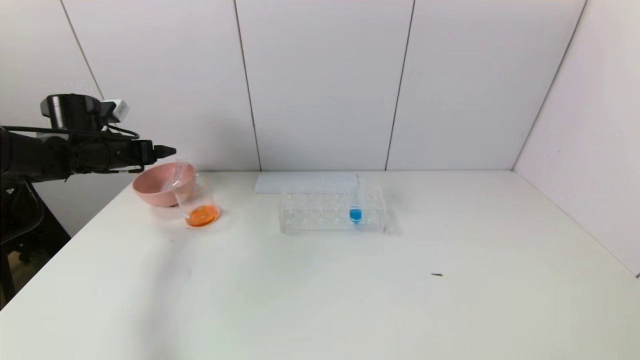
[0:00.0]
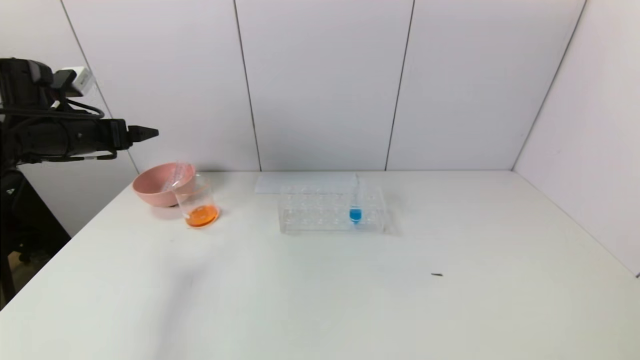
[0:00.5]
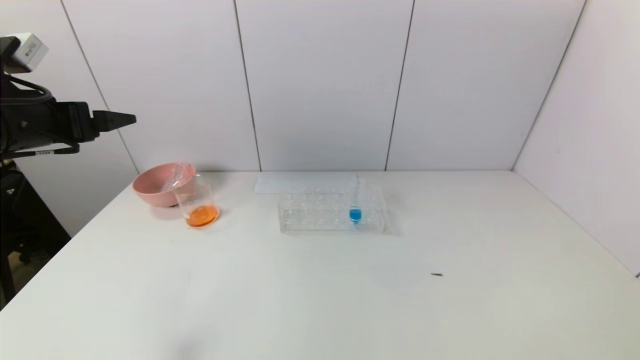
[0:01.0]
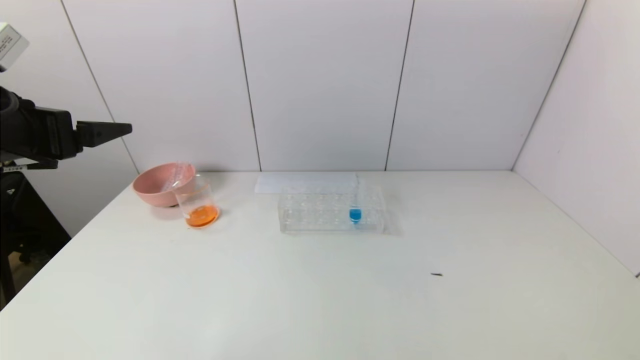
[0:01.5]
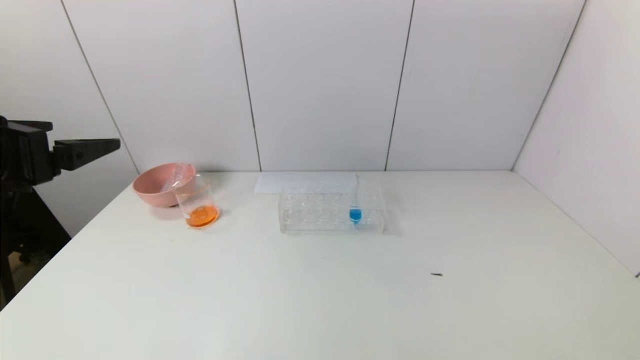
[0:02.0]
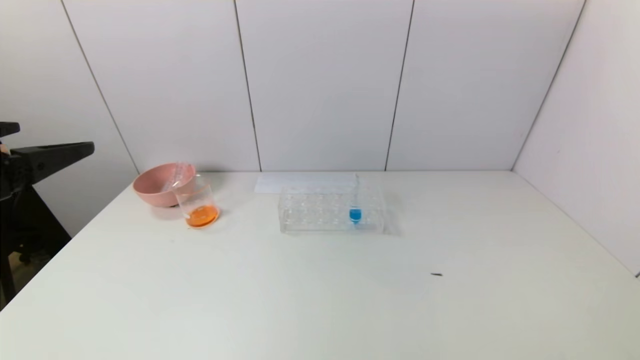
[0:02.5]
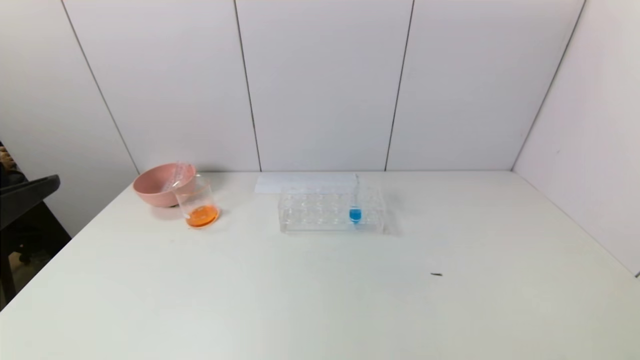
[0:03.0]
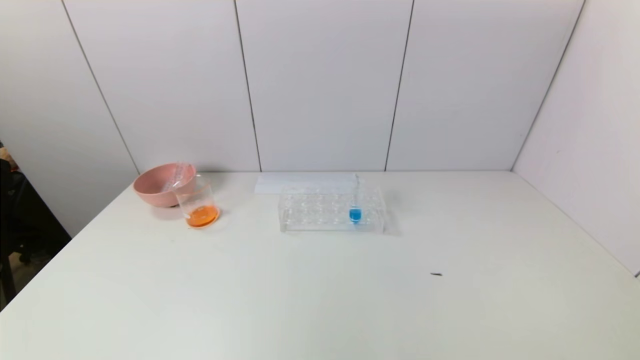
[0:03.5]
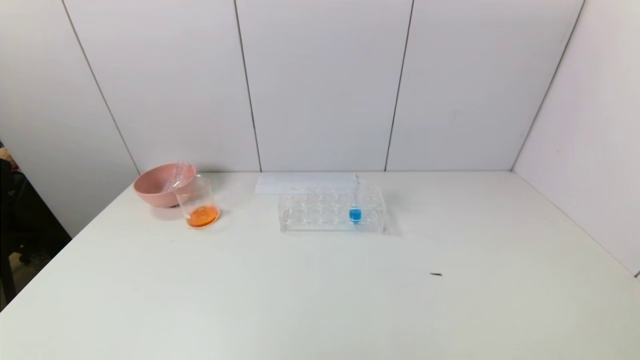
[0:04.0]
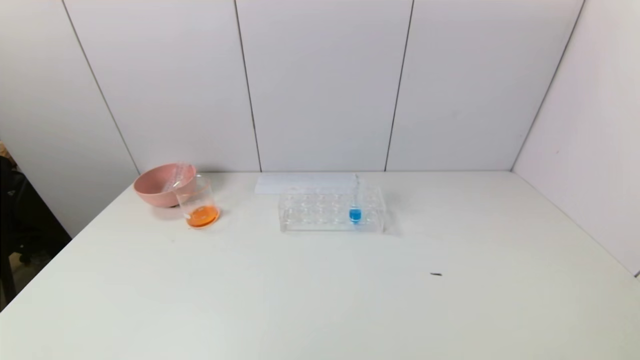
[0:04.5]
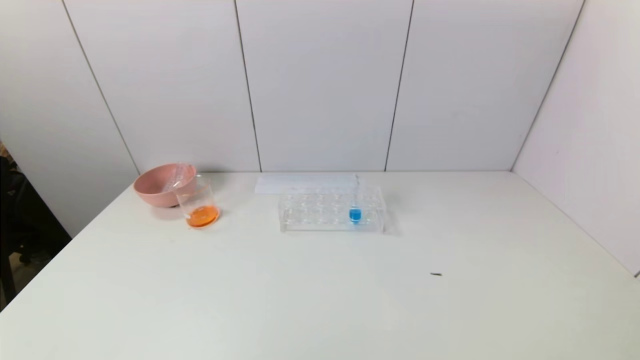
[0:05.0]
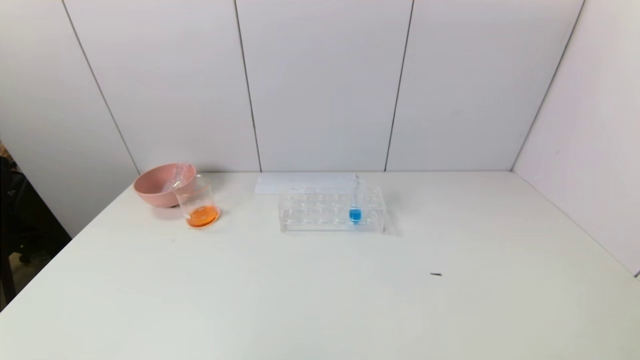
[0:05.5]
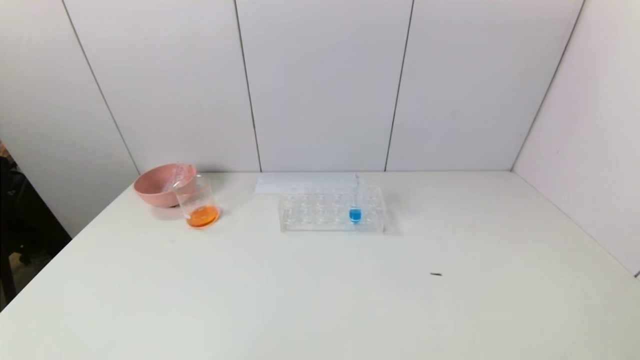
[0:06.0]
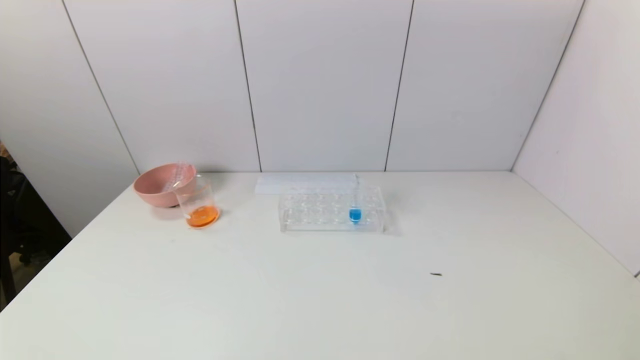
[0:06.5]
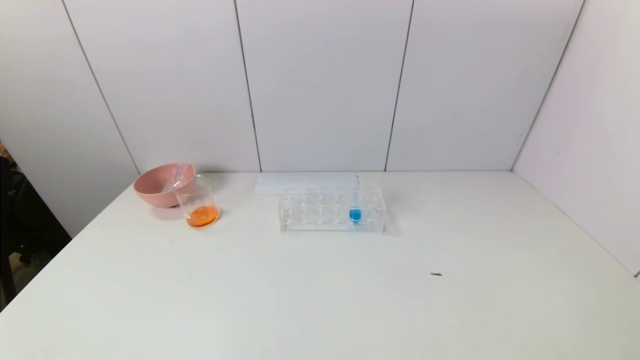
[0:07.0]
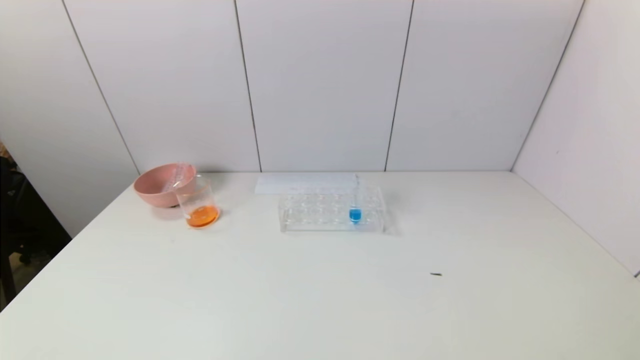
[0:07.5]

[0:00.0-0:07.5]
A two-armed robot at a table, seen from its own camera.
Task of the whole recording: pick up the test tube with yellow pigment and the test tube with red pigment by grippers and pour them into the beaker.
0:00.0 to 0:02.0: The left gripper is displaced backward and upward by about 25 cm.
0:02.0 to 0:04.0: The left gripper moves backward, some 25 cm.

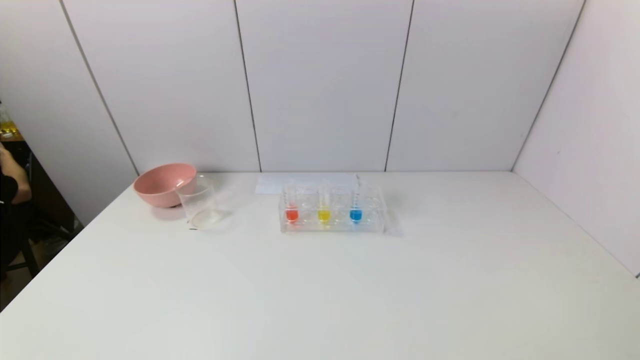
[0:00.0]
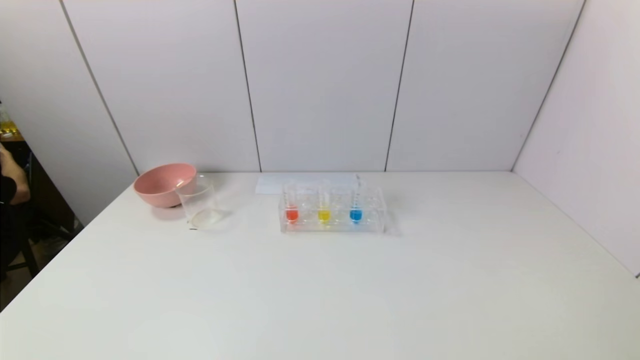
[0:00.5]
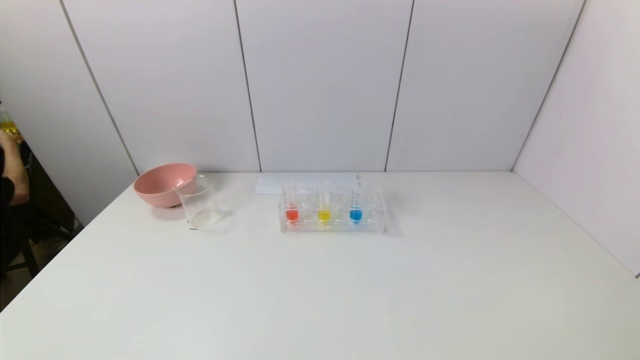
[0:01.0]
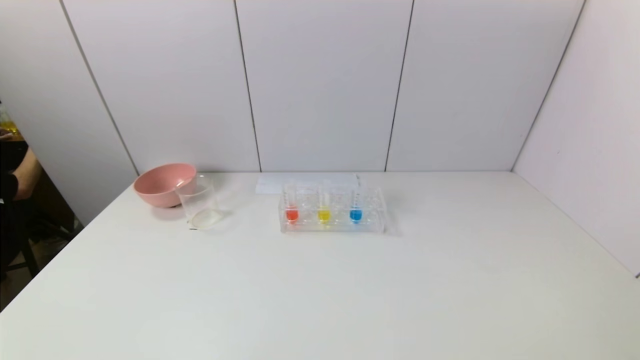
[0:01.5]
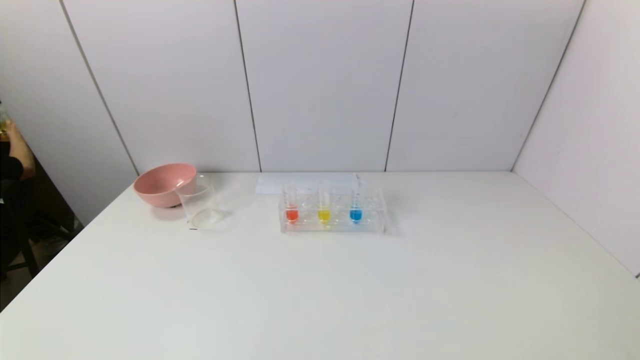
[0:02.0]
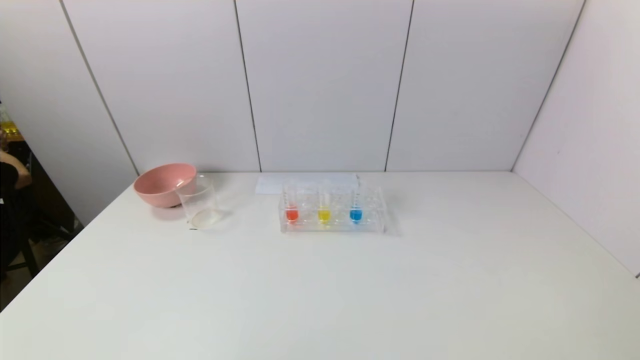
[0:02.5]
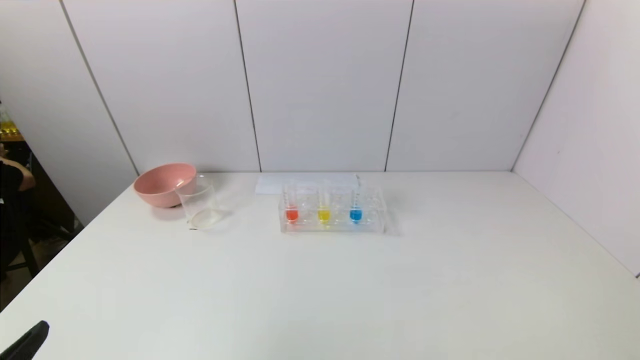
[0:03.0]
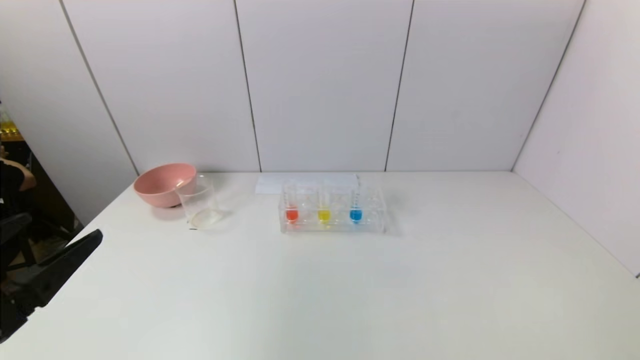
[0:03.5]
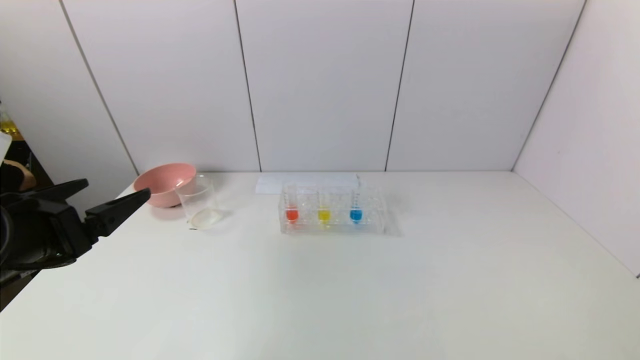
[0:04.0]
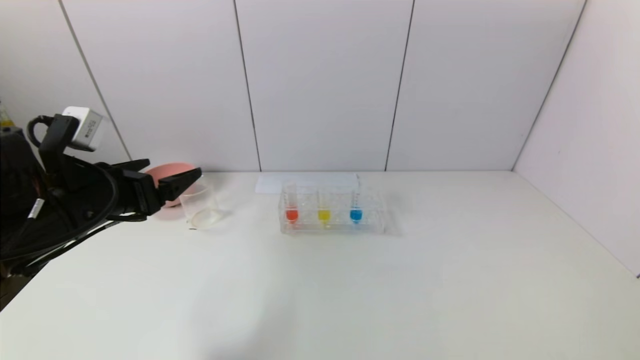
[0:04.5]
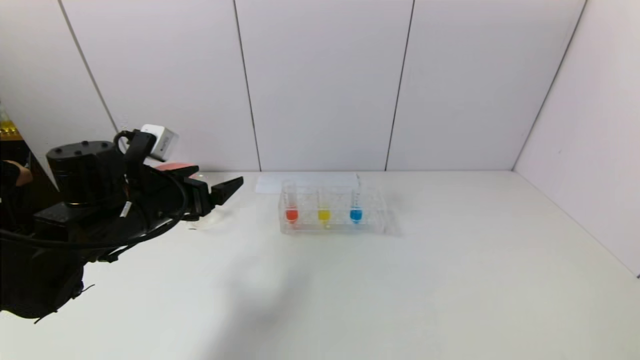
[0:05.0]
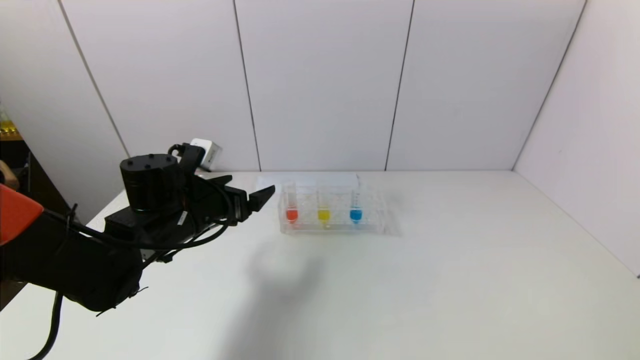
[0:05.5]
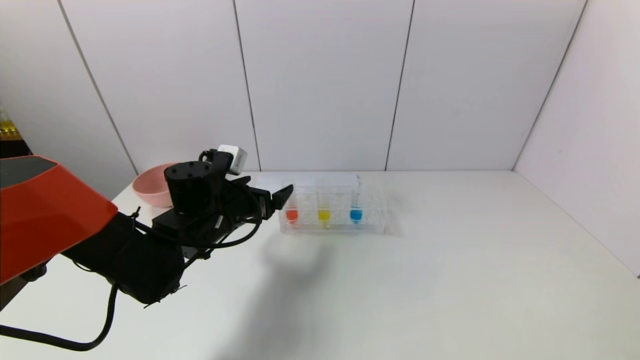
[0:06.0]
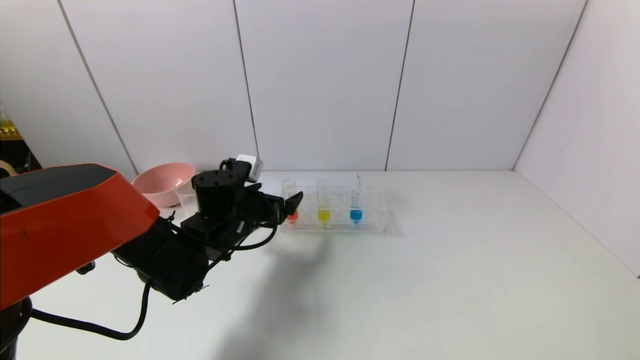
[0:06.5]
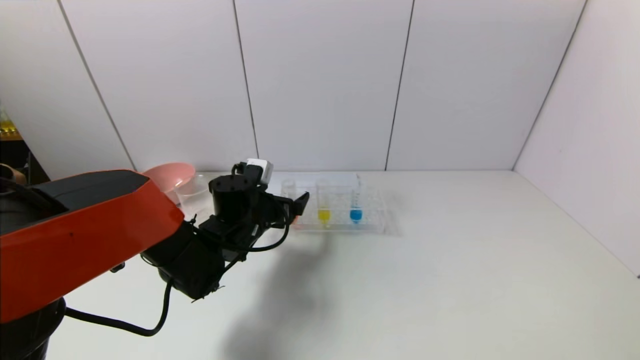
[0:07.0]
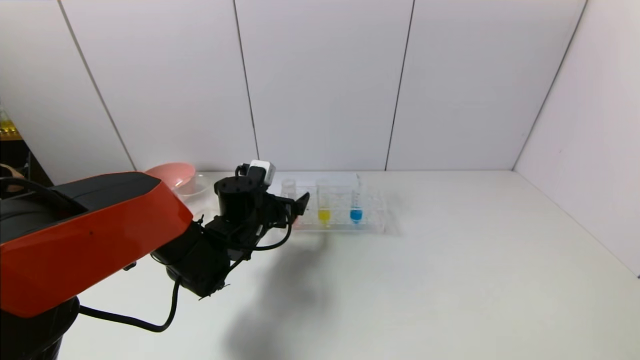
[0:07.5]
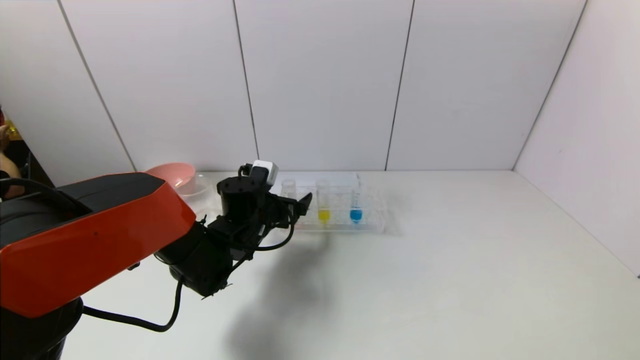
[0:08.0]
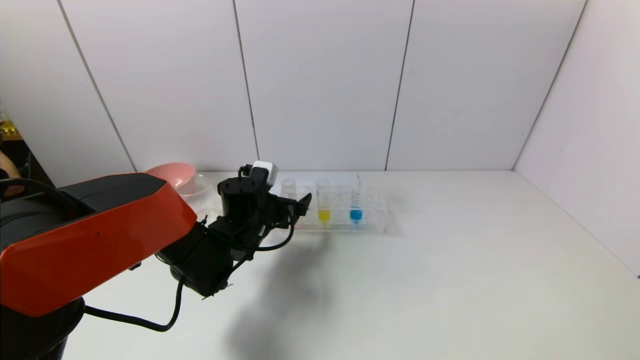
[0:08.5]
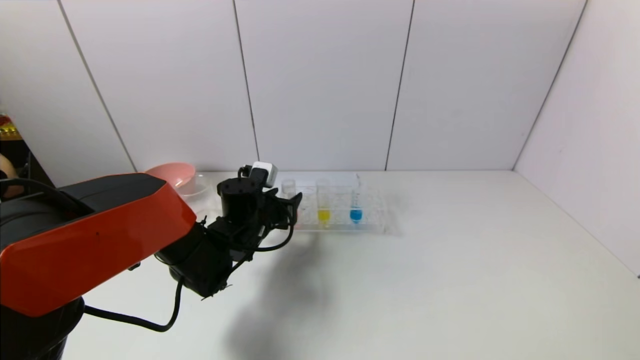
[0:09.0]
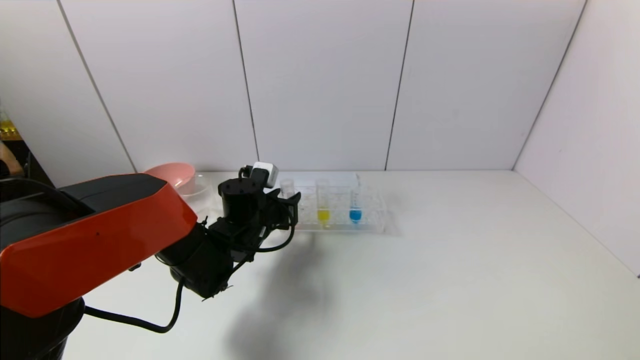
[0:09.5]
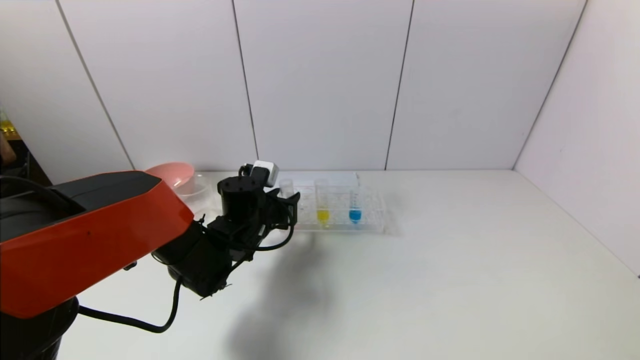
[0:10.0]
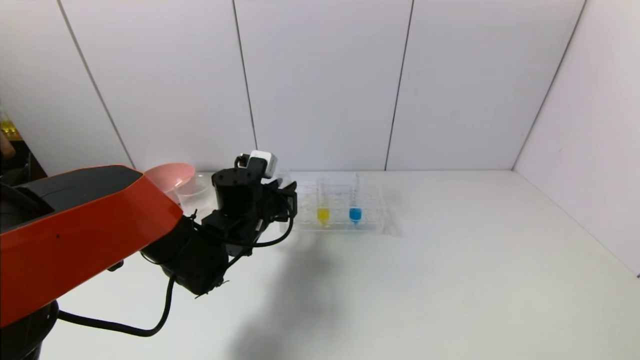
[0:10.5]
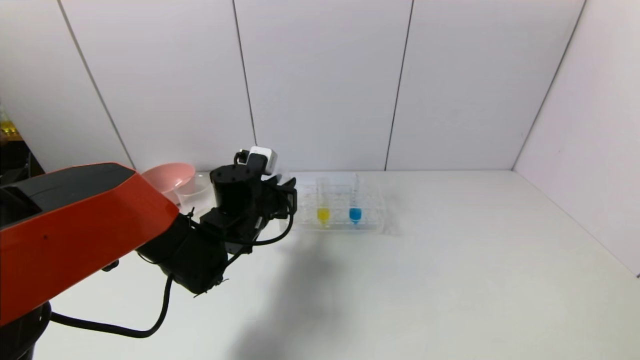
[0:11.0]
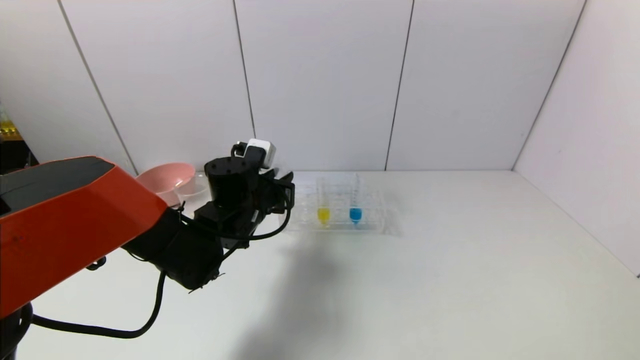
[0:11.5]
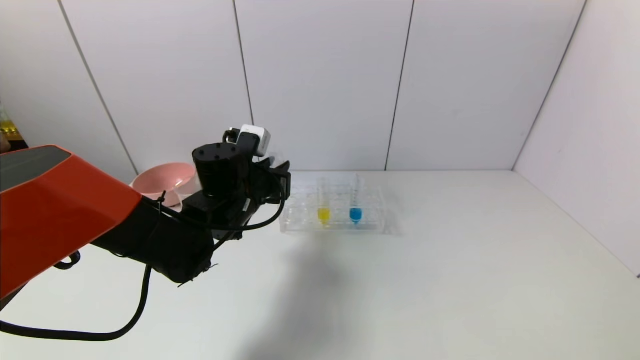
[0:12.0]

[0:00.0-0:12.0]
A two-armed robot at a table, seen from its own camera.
Task of the whole recording: pick up the test tube with yellow pigment and the test tube with red pigment by grippers and pour them into the beaker.
Step, 0:00.0 to 0:10.0: Grasp the red reagent with the left gripper.
0:02.0 to 0:04.0: The left gripper is displaced forward and upward by about 20 cm.
0:04.0 to 0:06.0: The left gripper is displaced forward, to the right and downward by approximately 25 cm.
0:06.0 to 0:08.0: The left gripper shifts by some 5 cm.
0:08.0 to 0:10.0: The left gripper closes its fingers.
0:10.0 to 0:12.0: The left gripper shifts approximately 5 cm upward.
